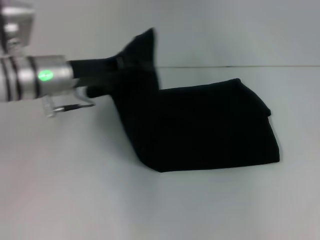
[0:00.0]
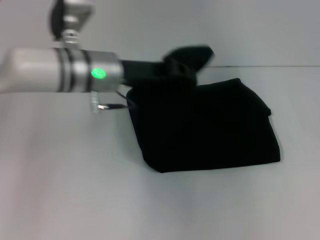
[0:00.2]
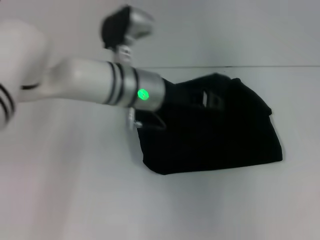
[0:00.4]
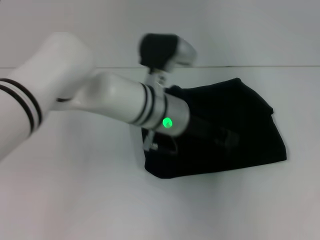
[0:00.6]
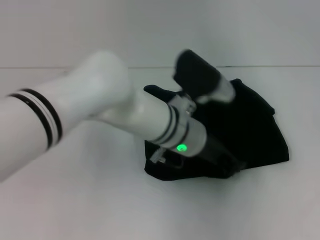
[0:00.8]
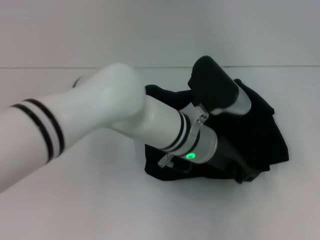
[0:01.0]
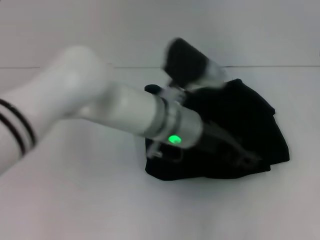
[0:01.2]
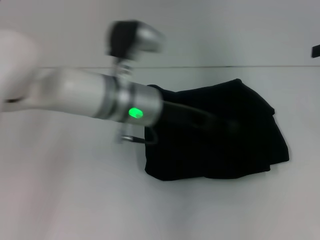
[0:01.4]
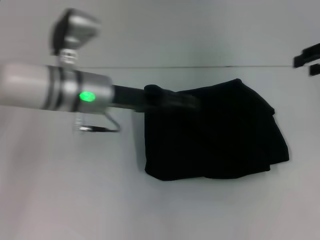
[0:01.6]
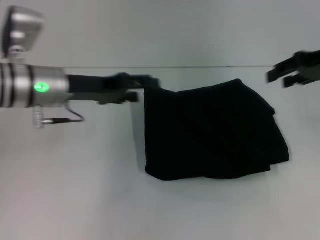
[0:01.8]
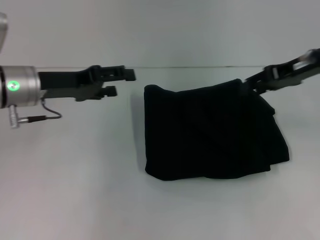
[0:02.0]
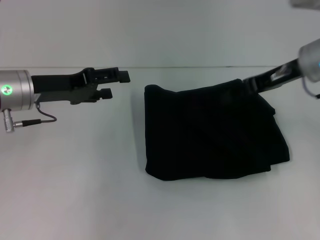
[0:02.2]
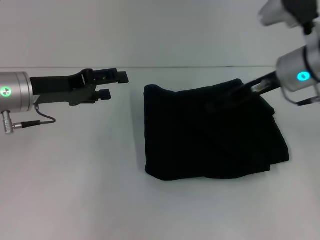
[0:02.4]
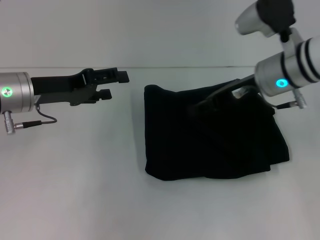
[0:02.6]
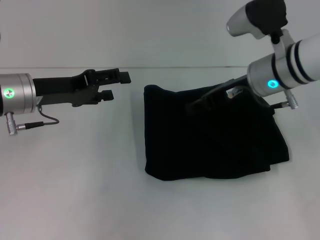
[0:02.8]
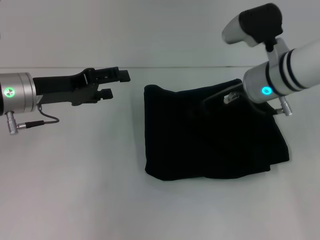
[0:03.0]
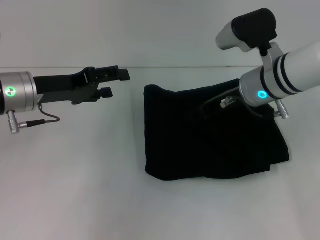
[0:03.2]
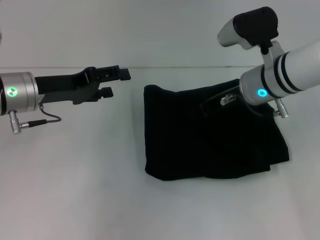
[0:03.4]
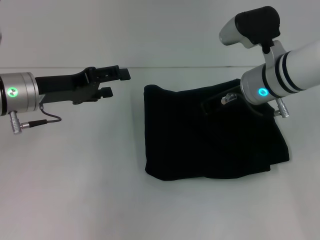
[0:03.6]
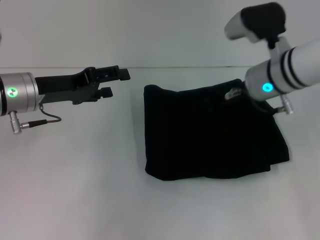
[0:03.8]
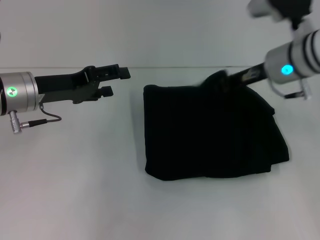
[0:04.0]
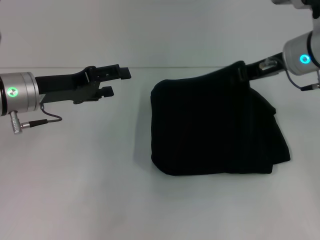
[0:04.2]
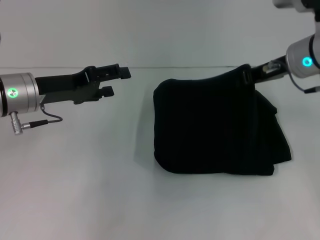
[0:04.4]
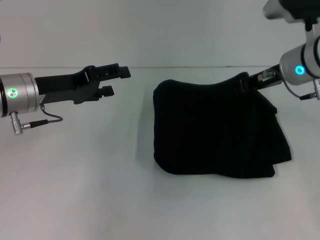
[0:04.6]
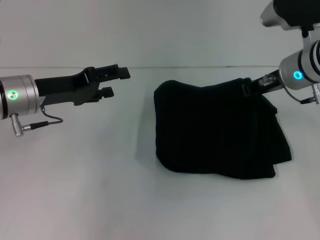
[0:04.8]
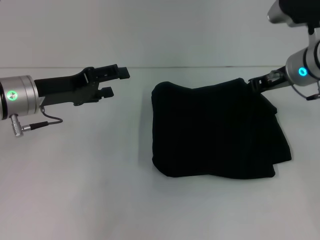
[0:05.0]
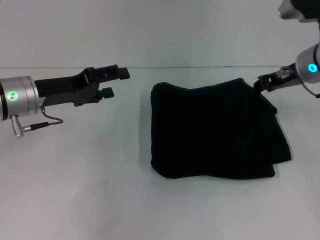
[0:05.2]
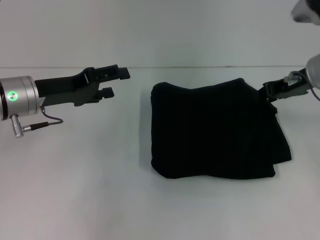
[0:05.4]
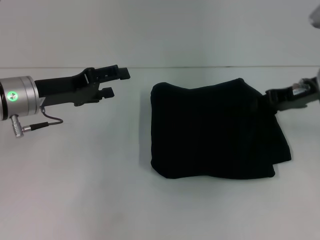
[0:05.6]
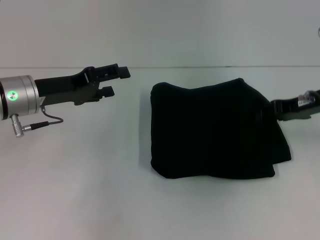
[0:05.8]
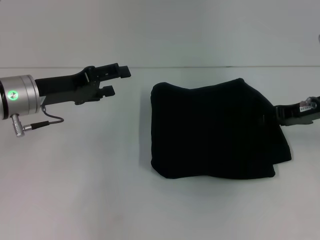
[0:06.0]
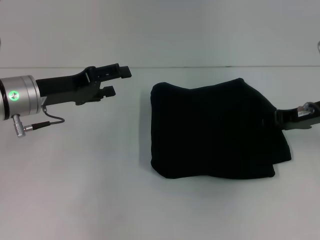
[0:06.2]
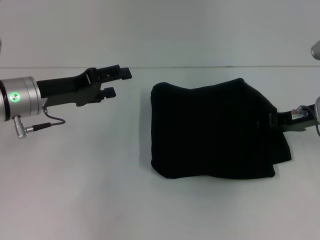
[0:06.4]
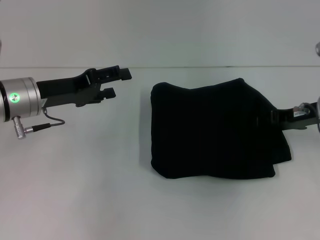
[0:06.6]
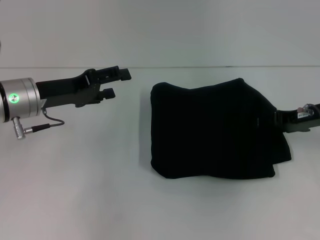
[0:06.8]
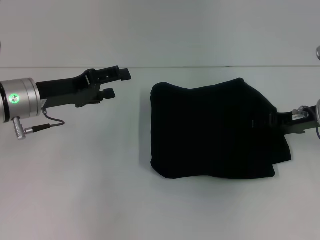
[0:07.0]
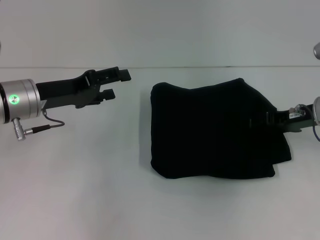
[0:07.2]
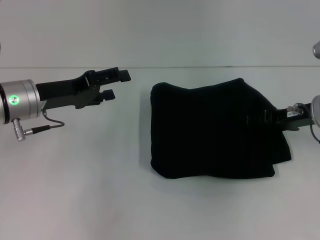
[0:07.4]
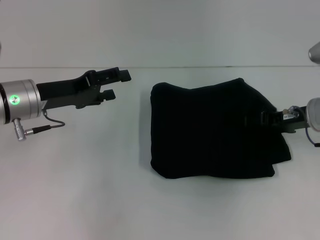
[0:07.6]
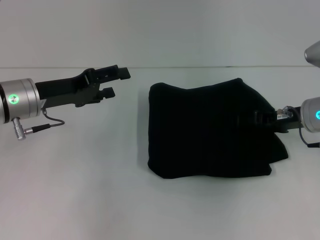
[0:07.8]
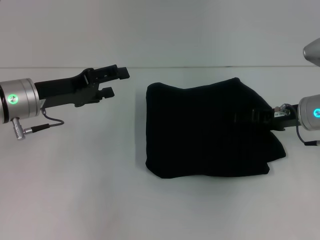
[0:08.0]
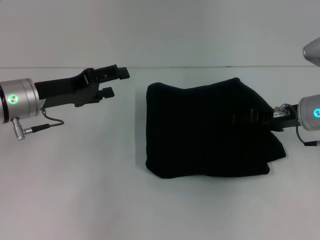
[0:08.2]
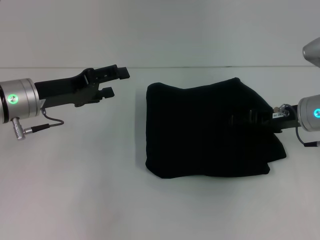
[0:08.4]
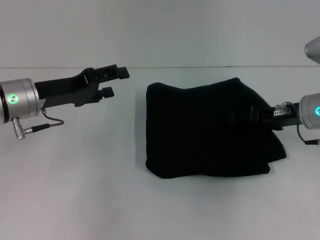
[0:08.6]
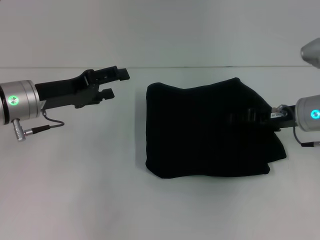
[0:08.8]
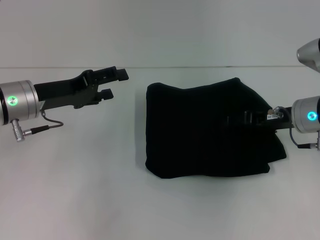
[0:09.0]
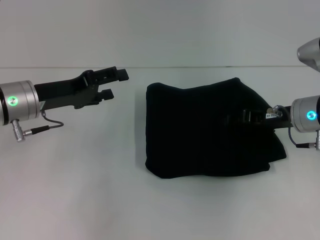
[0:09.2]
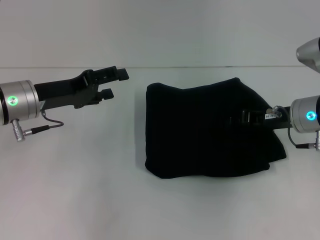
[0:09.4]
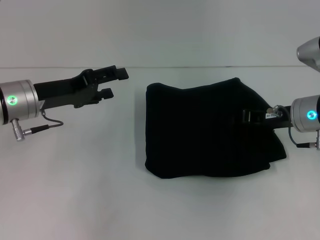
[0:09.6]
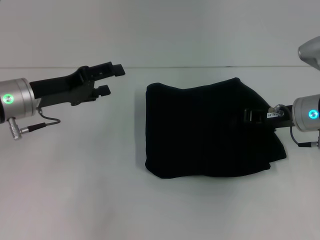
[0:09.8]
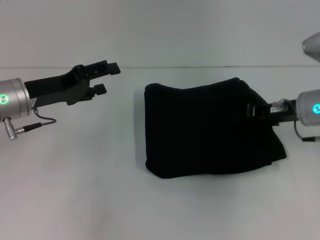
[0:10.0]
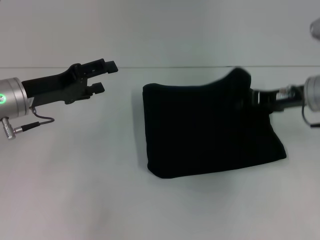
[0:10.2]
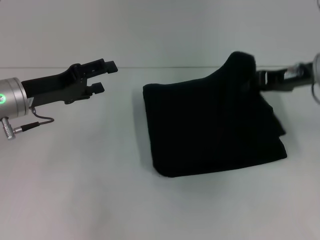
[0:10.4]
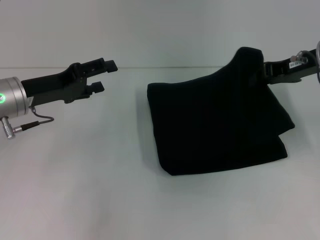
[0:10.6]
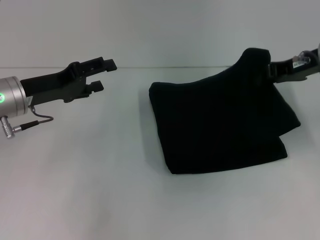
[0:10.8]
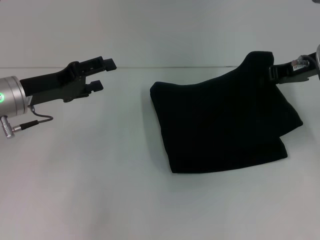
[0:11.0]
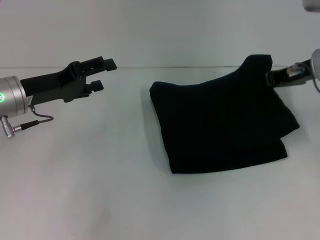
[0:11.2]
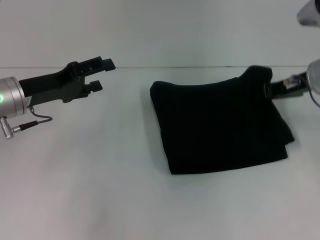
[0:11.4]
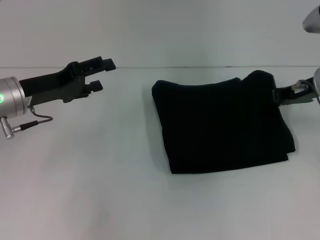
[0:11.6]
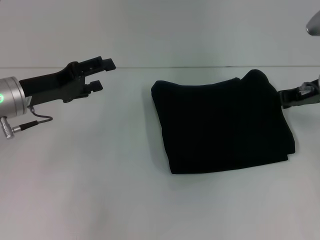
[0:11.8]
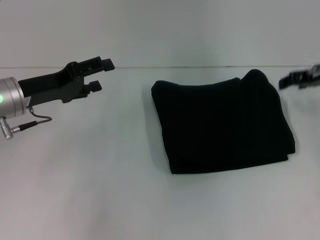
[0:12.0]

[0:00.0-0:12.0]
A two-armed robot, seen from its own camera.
0:00.0 to 0:01.6: The right gripper heads to the left, covering about 5 cm. The left gripper travels to the right and back again, approximately 20 cm each way, and opens.
0:01.6 to 0:03.0: The left gripper shifts about 10 cm to the left. The right gripper heads to the left and downward, covering about 20 cm.
0:03.0 to 0:04.4: The right gripper moves to the right, about 5 cm, and closes up.
0:04.4 to 0:06.0: The right gripper is displaced to the right by some 5 cm.
0:06.0 to 0:07.6: The right gripper opens its fingers.
0:07.6 to 0:09.0: The grippers move only a little.
0:09.0 to 0:10.4: The right gripper moves upward, some 10 cm, and closes.

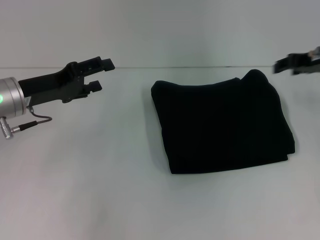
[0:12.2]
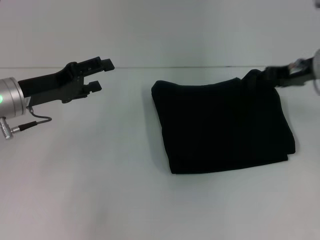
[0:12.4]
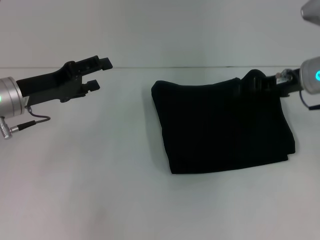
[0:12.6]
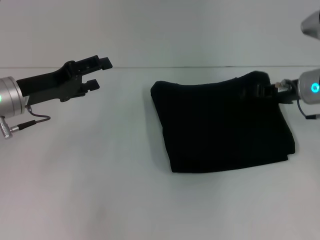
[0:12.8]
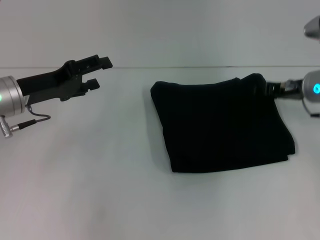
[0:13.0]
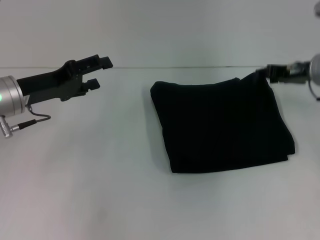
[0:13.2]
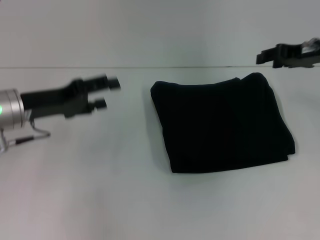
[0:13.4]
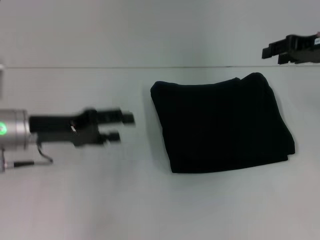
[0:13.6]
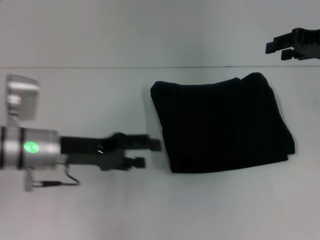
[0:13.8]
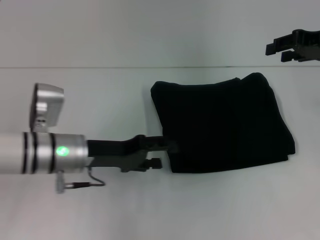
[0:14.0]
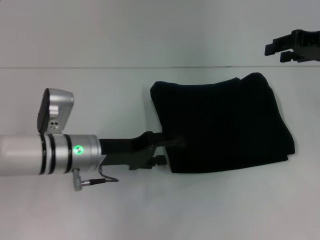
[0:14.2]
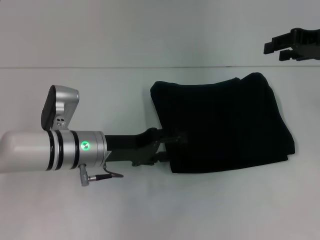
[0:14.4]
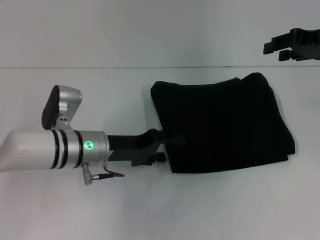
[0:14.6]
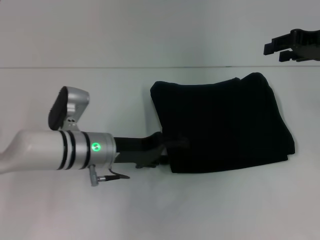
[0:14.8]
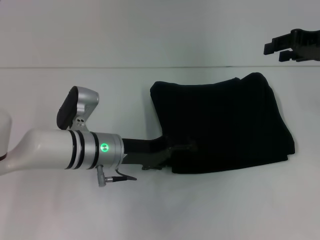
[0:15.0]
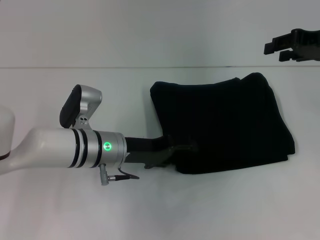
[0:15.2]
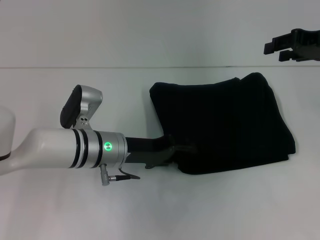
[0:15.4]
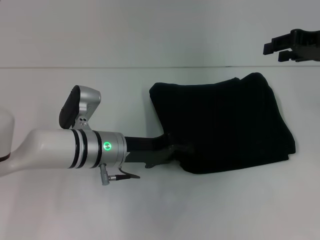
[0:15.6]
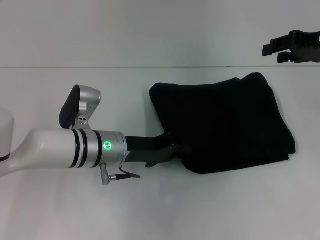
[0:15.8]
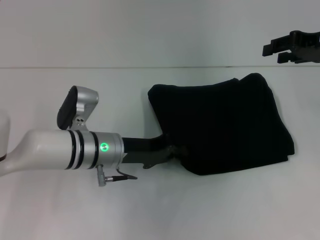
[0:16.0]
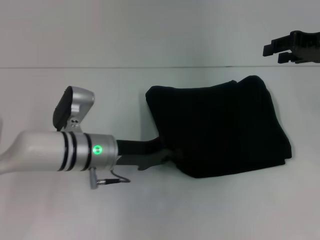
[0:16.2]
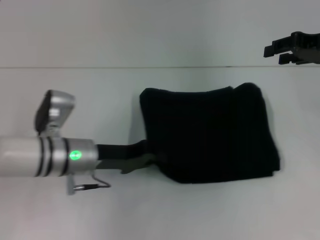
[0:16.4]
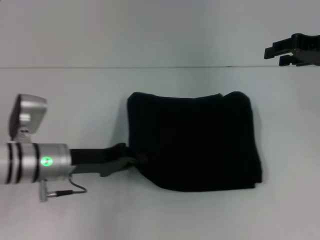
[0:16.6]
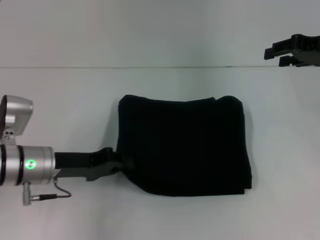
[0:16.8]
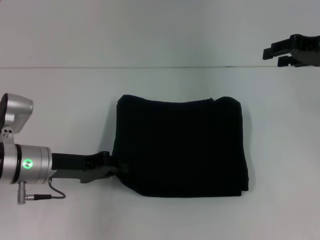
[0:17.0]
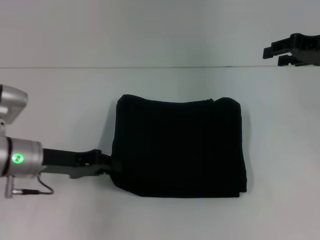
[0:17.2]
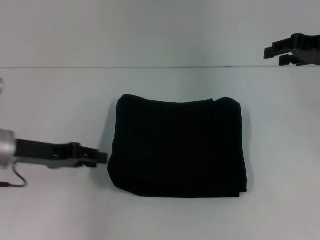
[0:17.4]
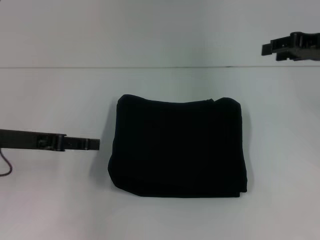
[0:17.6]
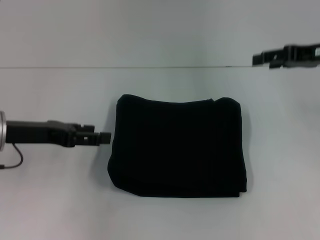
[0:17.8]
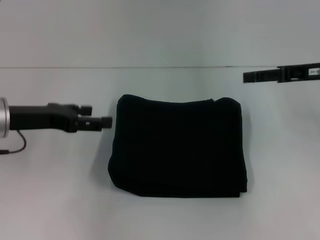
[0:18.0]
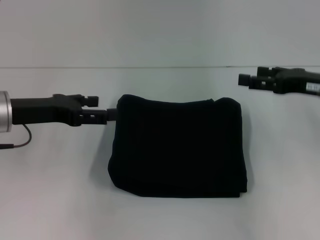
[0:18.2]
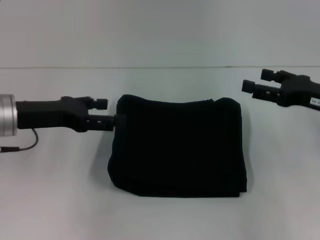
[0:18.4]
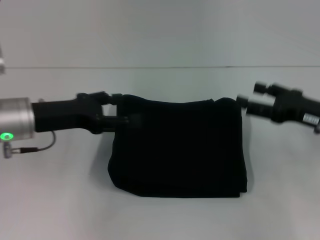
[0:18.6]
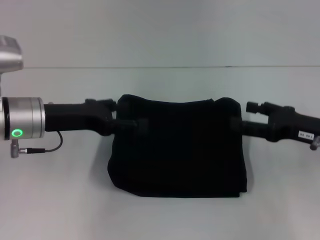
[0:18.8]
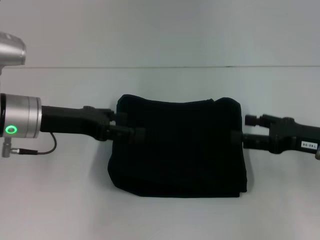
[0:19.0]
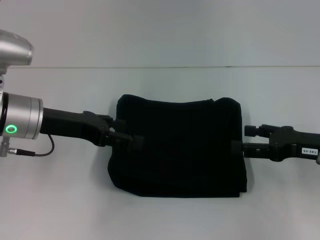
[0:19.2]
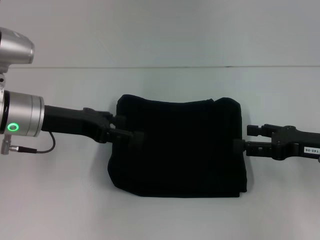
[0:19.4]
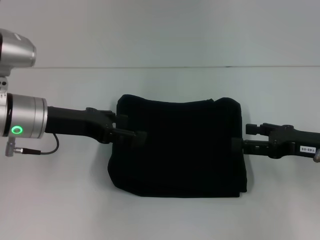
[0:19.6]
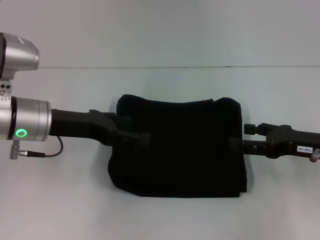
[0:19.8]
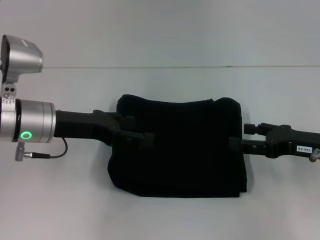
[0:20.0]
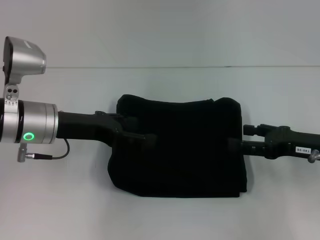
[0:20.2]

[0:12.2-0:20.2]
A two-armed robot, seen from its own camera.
0:12.2 to 0:13.8: The left gripper is displaced to the right by roughly 5 cm.
0:13.8 to 0:15.4: The left gripper moves to the right, about 10 cm.
0:15.4 to 0:17.0: The left gripper is displaced to the left by about 10 cm, and closes up.
0:17.0 to 0:18.6: The left gripper goes roughly 5 cm upward, and opens its fingers. The right gripper shifts approximately 15 cm downward and backward, and opens up.
0:18.6 to 0:20.2: There are only small adjustments of the grippers.

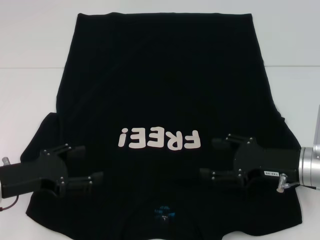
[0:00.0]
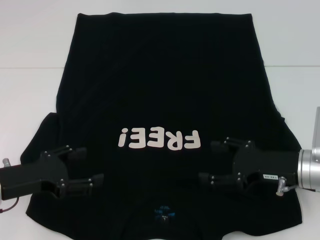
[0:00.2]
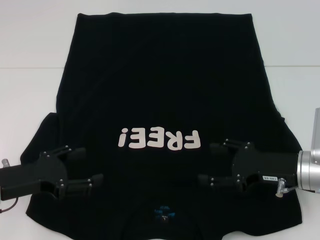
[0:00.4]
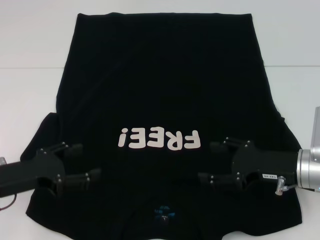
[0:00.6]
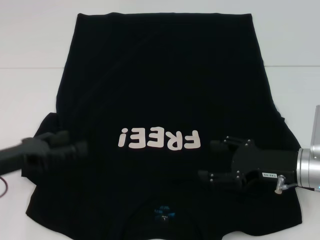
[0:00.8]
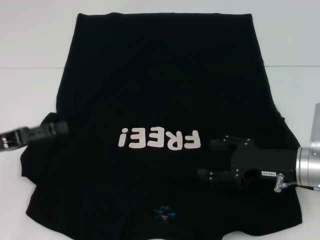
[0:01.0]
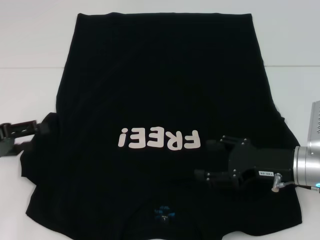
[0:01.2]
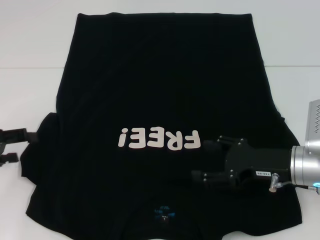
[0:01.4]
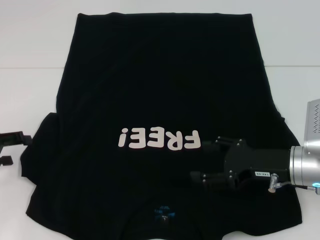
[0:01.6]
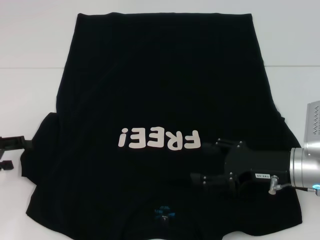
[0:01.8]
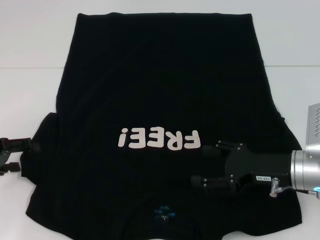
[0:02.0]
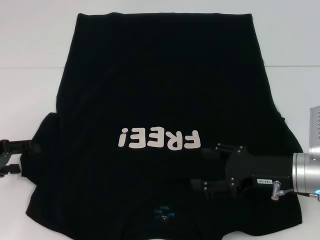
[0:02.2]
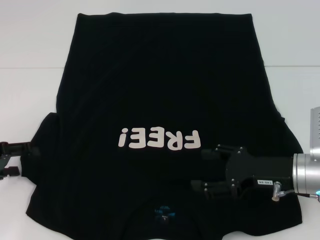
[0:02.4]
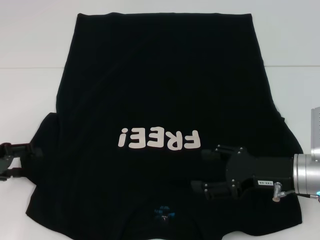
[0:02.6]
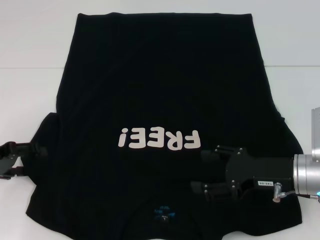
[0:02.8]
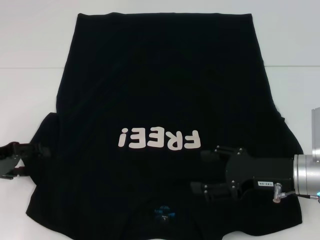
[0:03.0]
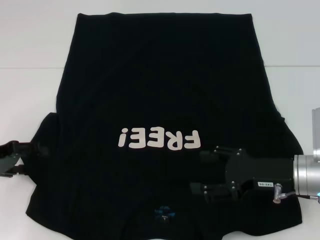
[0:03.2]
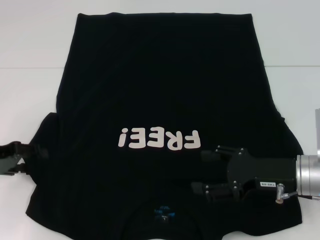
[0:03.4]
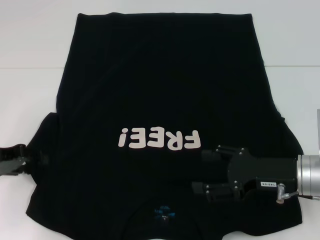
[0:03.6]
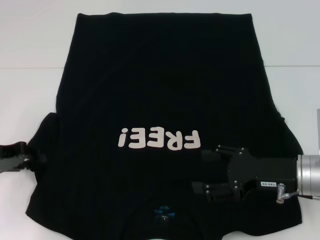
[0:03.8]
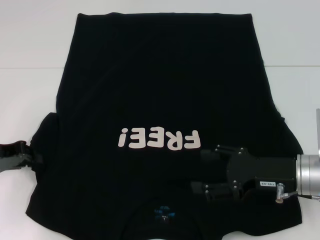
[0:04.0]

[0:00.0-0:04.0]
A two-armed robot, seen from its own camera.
0:00.0 to 0:01.4: The left gripper moves to the left, roughly 10 cm.
0:01.4 to 0:02.6: The grippers move only a little.
0:02.6 to 0:04.0: The left gripper closes.
